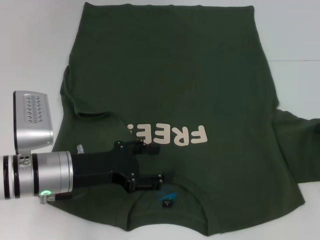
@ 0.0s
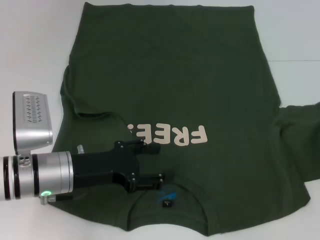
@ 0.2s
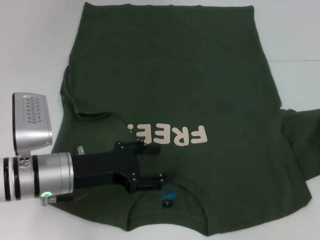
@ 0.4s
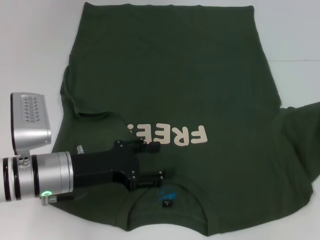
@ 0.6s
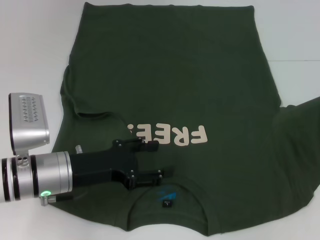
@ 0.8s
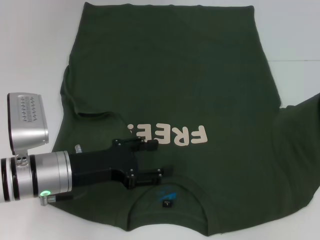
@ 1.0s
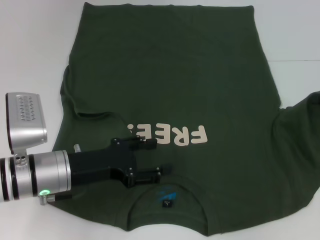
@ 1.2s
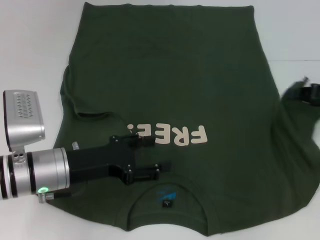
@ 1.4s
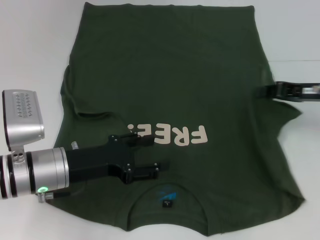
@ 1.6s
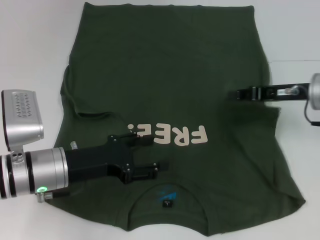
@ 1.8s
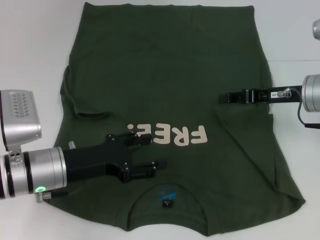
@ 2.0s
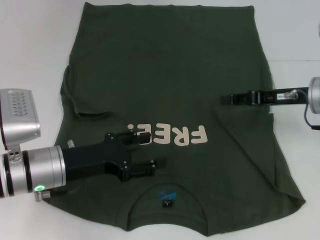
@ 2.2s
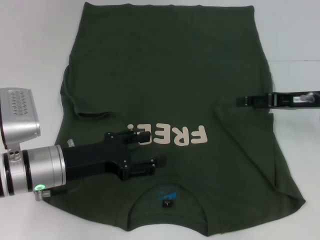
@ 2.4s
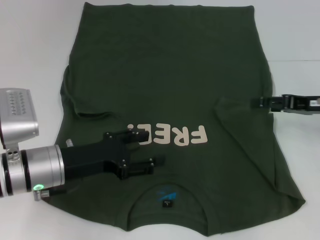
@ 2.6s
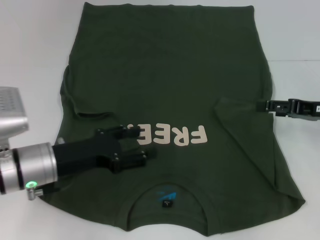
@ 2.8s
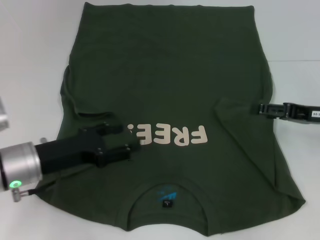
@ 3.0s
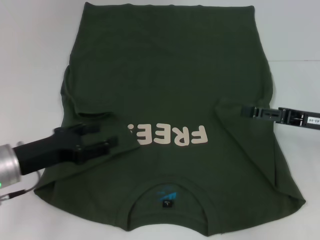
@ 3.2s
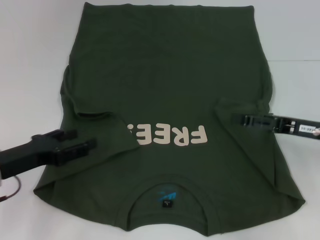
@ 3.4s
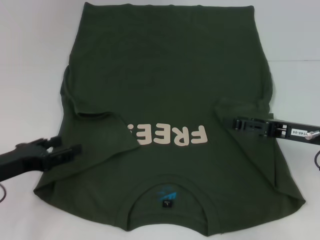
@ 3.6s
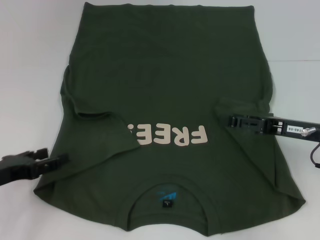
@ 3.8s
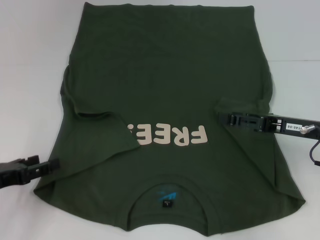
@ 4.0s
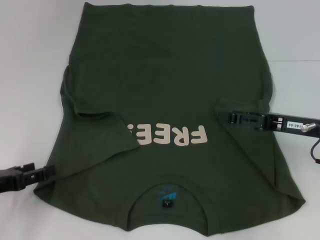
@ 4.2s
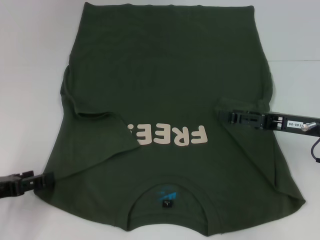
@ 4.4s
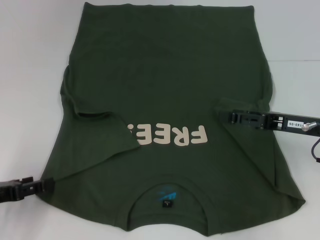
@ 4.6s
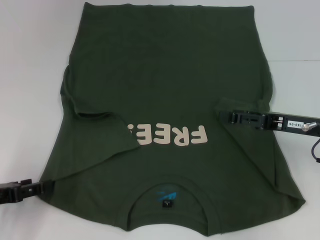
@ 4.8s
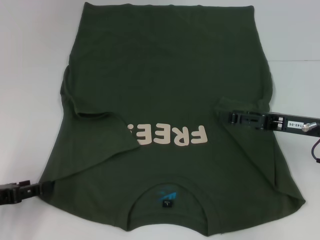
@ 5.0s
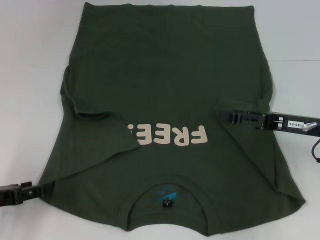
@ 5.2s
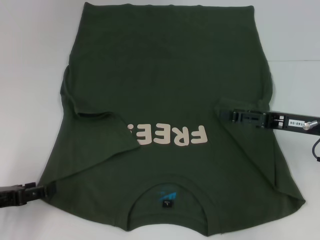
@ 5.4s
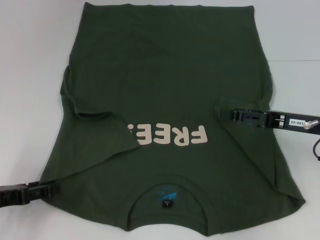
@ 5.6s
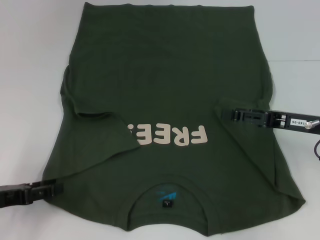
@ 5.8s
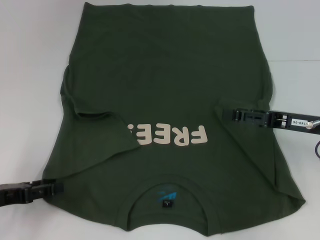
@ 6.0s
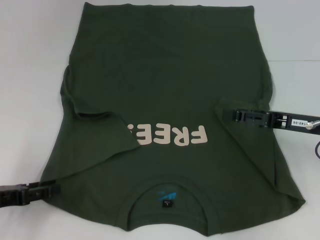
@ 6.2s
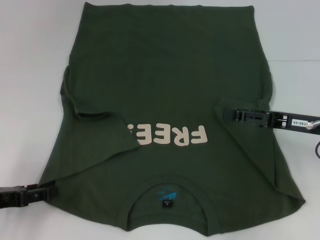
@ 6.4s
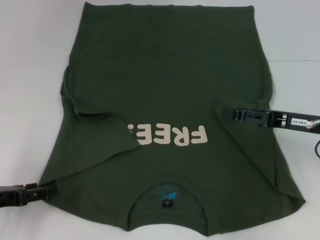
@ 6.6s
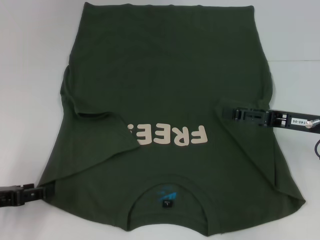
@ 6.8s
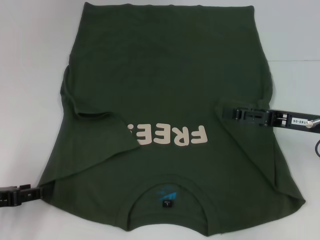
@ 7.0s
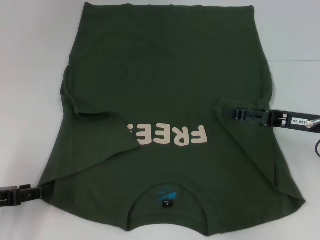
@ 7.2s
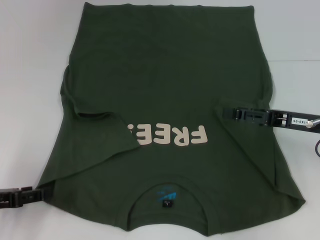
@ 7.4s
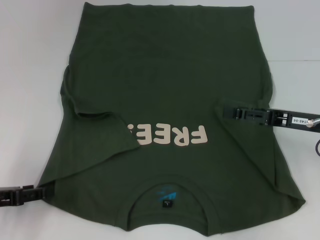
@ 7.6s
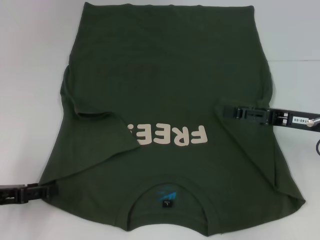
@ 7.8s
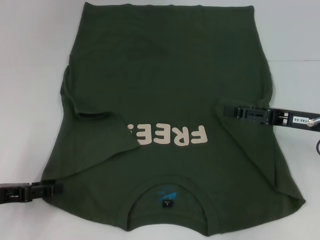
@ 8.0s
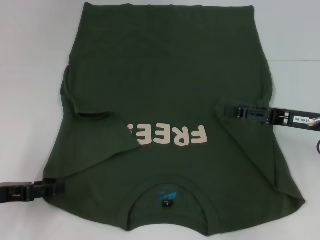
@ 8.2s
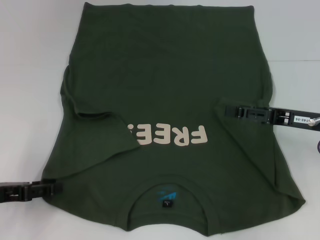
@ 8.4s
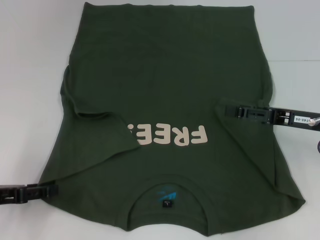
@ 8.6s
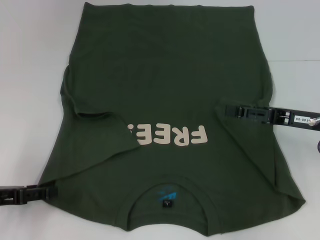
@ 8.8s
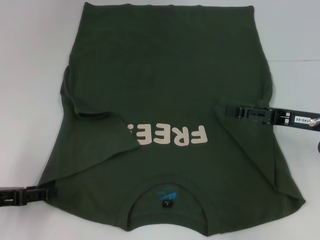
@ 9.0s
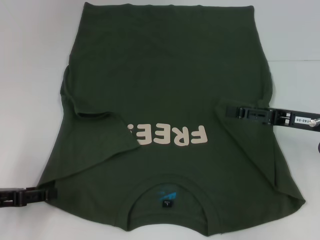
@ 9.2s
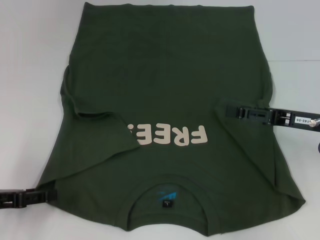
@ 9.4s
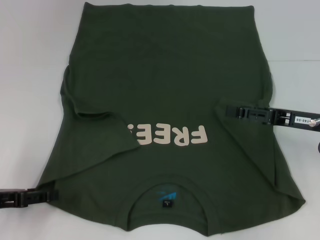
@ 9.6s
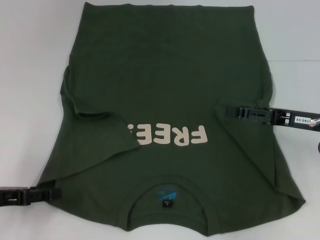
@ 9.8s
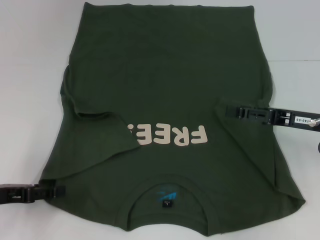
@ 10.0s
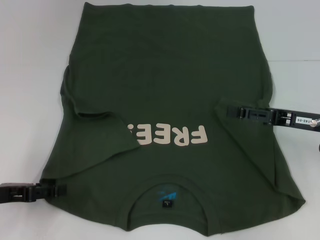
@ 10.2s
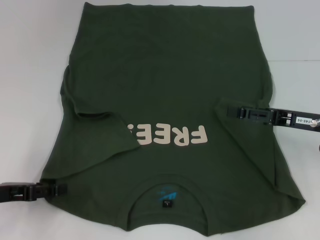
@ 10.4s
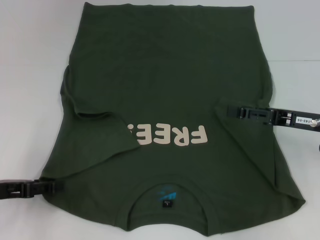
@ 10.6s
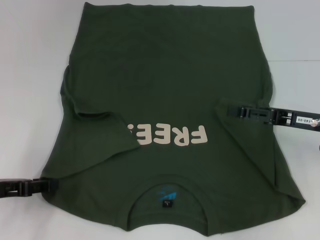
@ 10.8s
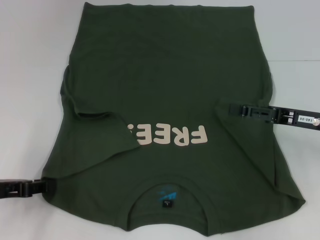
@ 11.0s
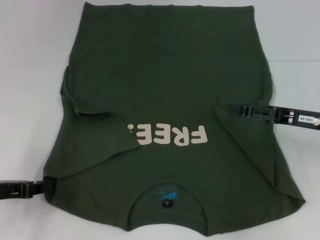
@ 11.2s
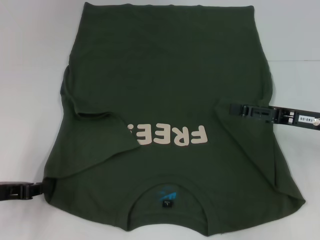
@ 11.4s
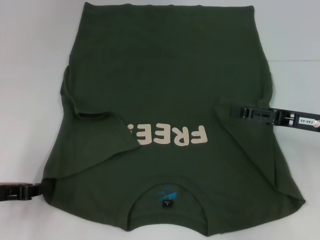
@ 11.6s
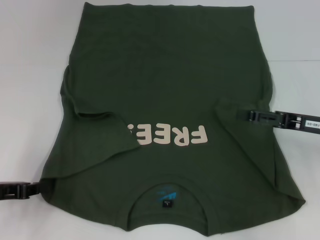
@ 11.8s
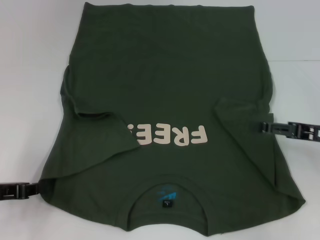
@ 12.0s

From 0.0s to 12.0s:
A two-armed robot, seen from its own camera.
Step, from 0.0s to 4.4s: Fold the bottom right sleeve with your right hand.
Step, from 4.6s to 11.4s: Grab the bottom left corner with your left hand.
From 0.0s to 1.6s: The right gripper moves to the left, forward and upward, some 15 cm.
From 1.6s to 3.0s: The right gripper opens its fingers.
From 3.0s to 4.4s: The left gripper heads to the left and backward, covering some 10 cm.
From 4.4s to 6.0s: The grippers make only small movements.
From 6.0s to 7.6s: Neither gripper changes place.
From 7.6s to 10.4s: The grippers move only a little.

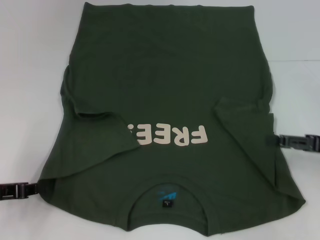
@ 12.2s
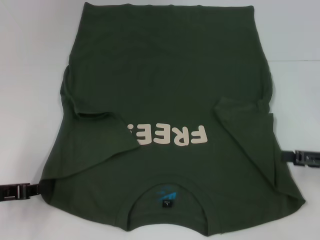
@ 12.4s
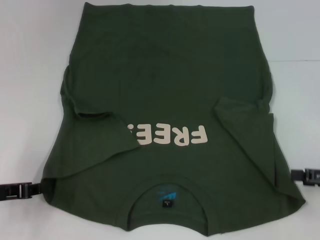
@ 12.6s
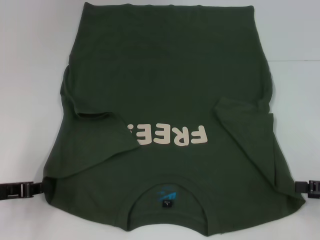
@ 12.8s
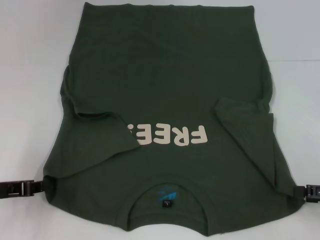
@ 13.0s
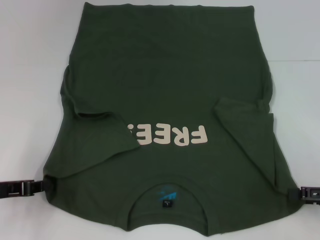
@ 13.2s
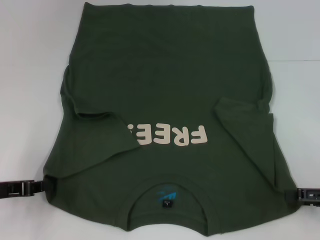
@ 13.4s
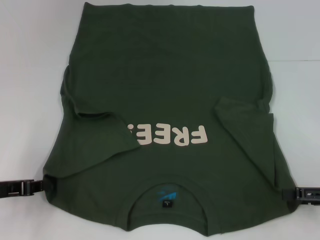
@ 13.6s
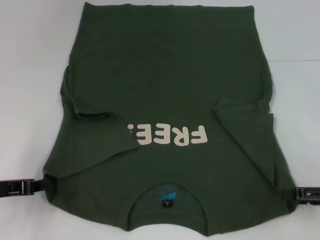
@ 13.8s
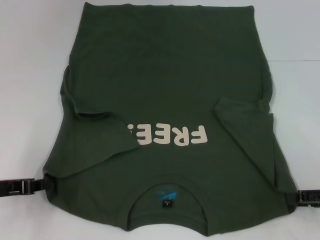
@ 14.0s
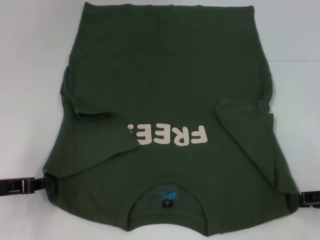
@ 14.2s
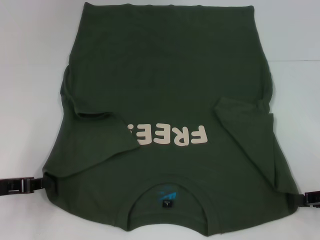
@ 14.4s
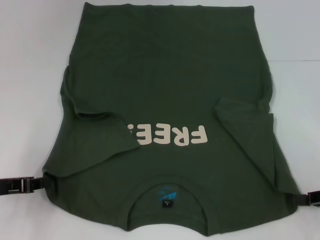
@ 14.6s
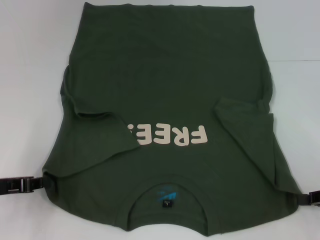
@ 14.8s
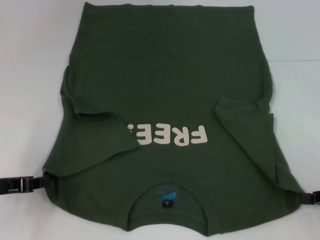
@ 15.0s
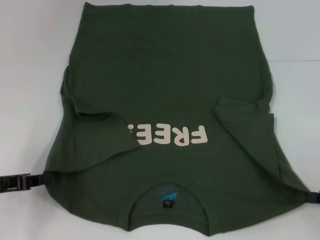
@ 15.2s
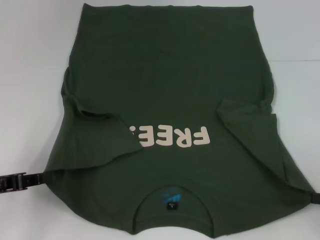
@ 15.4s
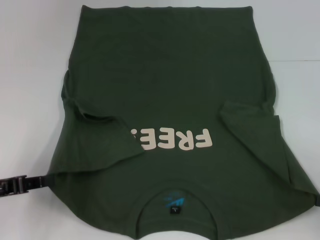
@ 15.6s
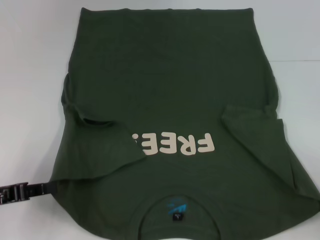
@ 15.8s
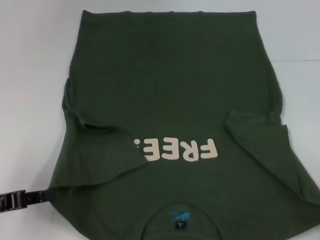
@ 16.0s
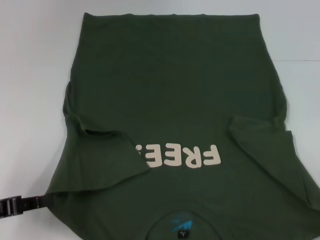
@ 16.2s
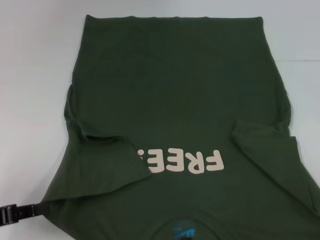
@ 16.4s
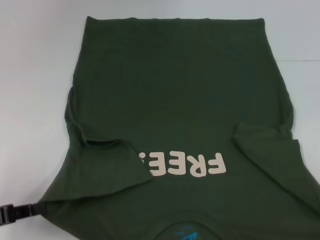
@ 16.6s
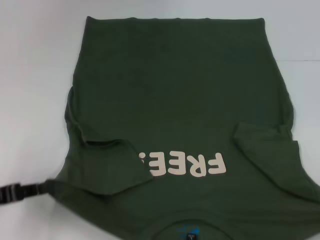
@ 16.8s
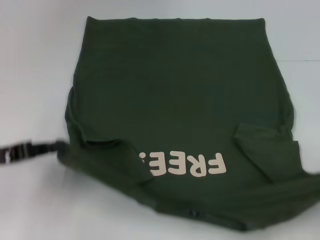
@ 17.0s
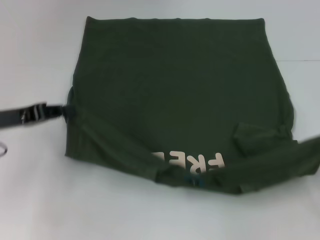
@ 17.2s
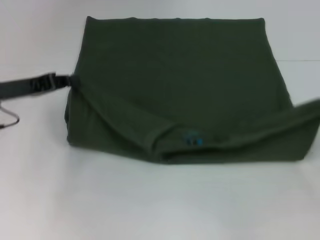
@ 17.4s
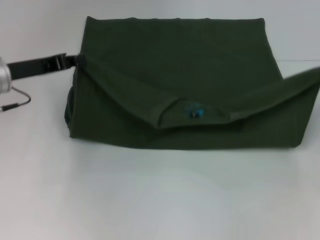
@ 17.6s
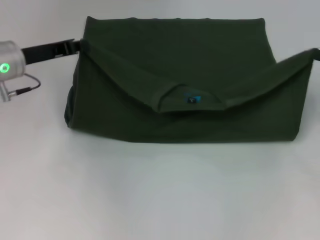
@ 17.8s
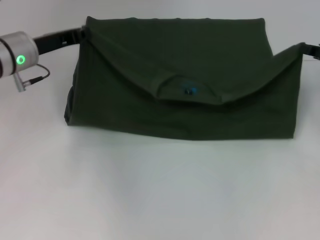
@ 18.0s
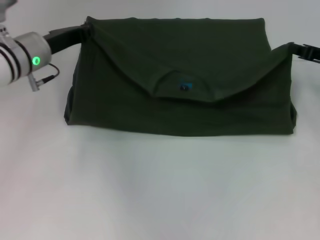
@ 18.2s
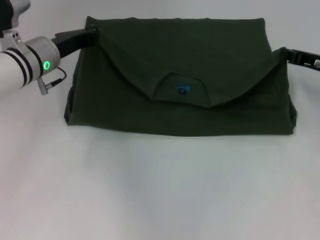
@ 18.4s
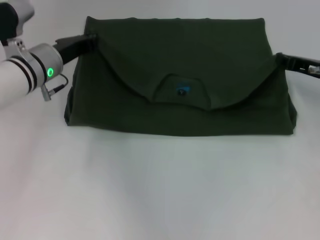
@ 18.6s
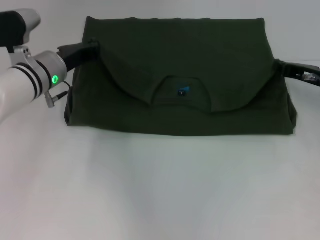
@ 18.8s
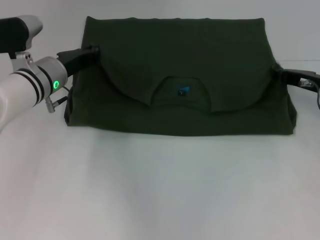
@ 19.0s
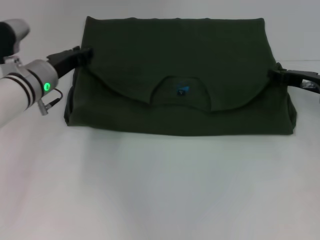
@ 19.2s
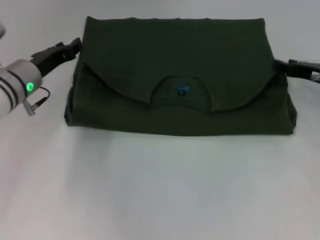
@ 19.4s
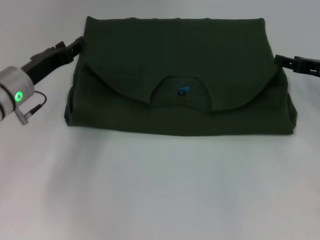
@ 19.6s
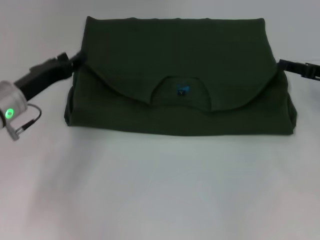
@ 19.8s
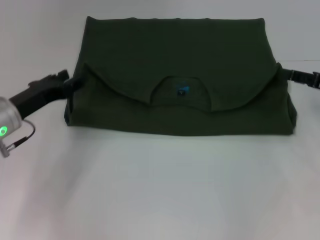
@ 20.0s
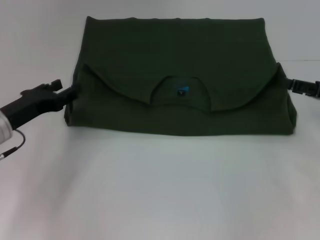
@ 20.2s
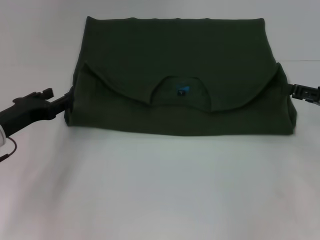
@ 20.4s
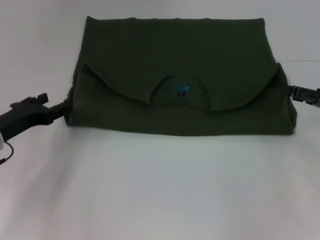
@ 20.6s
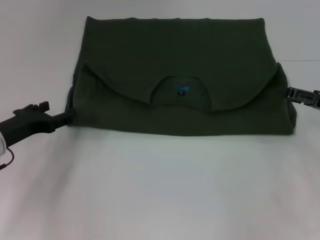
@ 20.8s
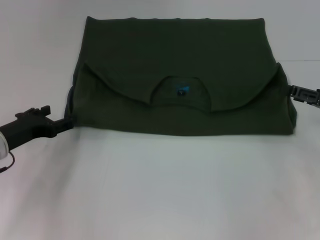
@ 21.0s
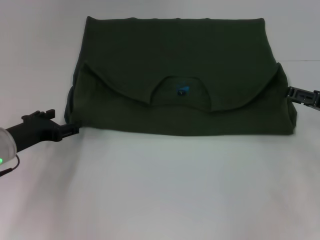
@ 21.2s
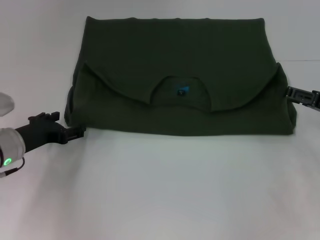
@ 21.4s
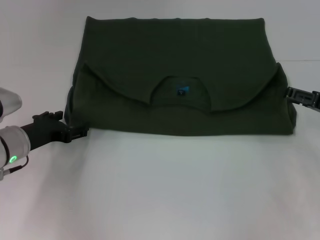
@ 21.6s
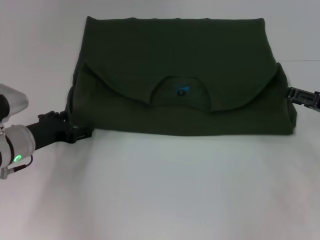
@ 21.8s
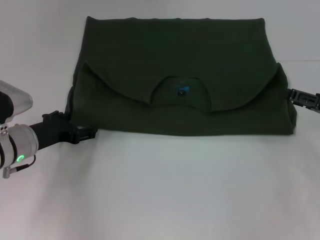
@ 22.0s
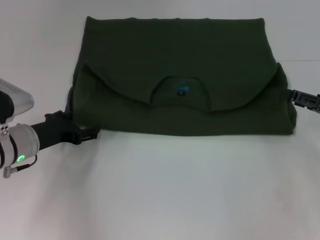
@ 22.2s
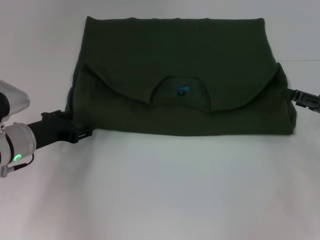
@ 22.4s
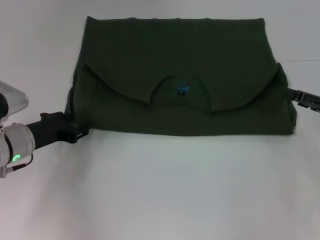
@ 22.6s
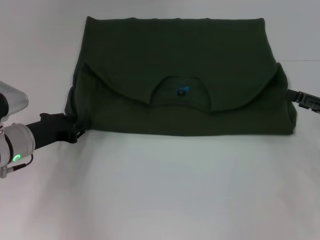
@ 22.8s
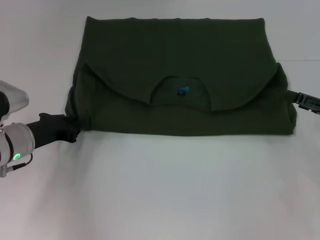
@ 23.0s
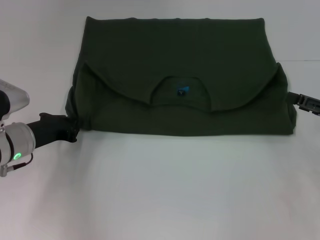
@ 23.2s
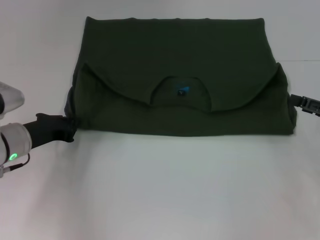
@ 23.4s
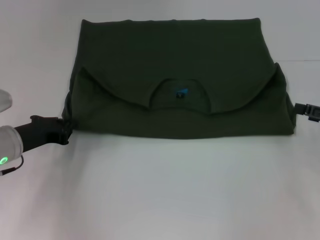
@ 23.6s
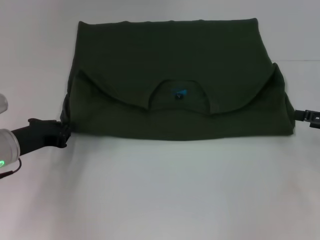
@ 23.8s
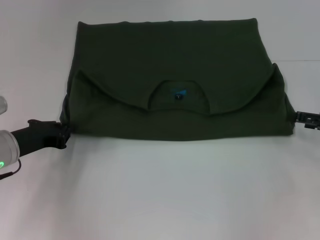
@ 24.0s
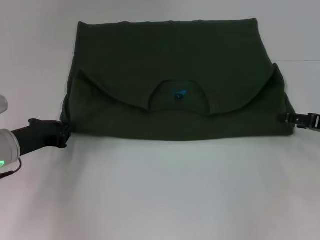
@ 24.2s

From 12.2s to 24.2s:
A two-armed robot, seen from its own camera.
Step, from 12.2s to 15.2s: Grab the bottom right corner with your right hand.
Step, from 15.4s to 19.4s: Fold the clothes with your left hand.
Step, from 15.4s to 19.4s: Fold the clothes with your right hand.
From 12.2s to 13.8s: The right gripper changes place by about 5 cm.
From 13.8s to 15.2s: The right gripper closes its fingers.
From 15.2s to 16.6s: The left gripper goes roughly 5 cm backward. The right gripper shifts about 10 cm backward.
From 16.6s to 18.2s: The left gripper shifts about 25 cm forward and to the right; the right gripper shifts roughly 30 cm forward.
From 18.2s to 19.8s: The left gripper shifts some 5 cm backward, and opens its fingers, while the right gripper opens its fingers.
From 19.8s to 21.2s: The right gripper moves backward, about 5 cm; the left gripper moves about 5 cm.
From 21.2s to 22.6s: The grippers stay close to where they were, moving slightly.
From 22.6s to 24.2s: The left gripper closes.
